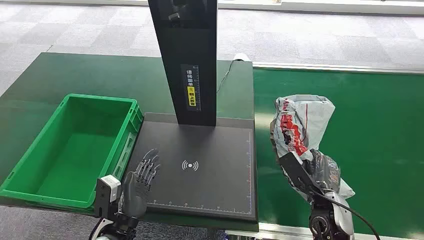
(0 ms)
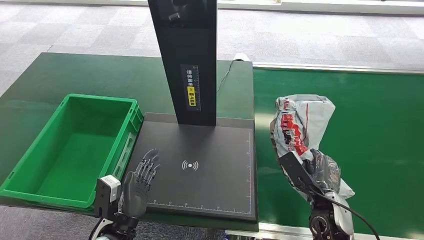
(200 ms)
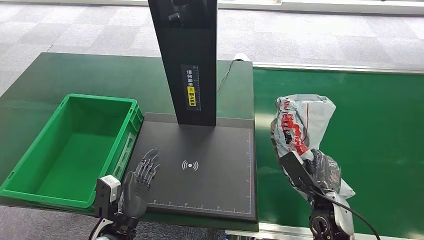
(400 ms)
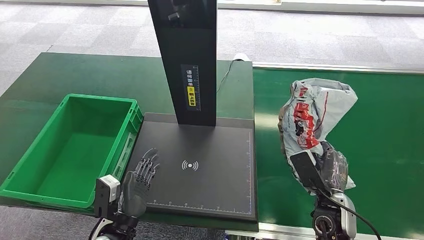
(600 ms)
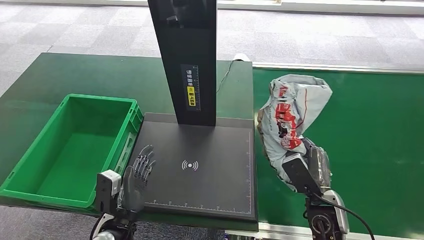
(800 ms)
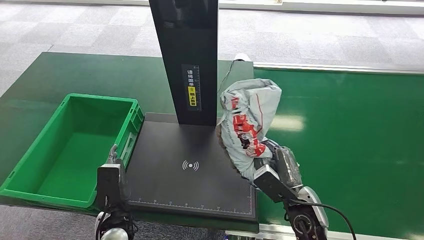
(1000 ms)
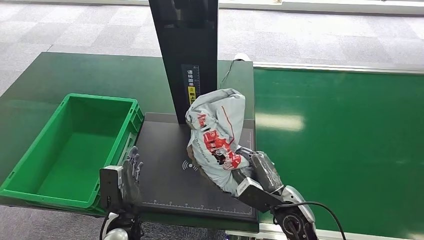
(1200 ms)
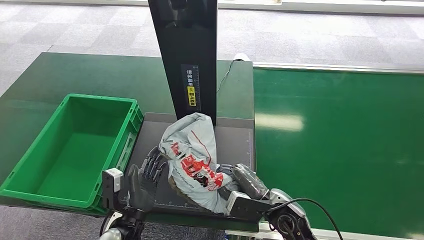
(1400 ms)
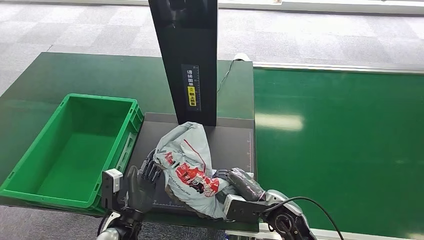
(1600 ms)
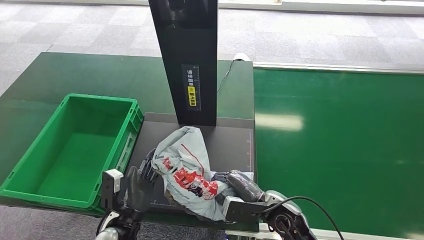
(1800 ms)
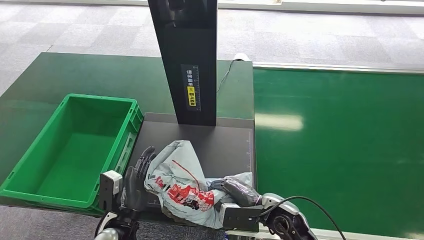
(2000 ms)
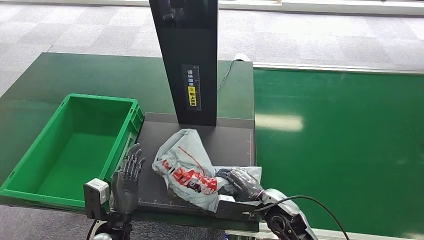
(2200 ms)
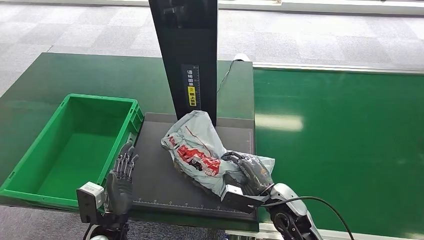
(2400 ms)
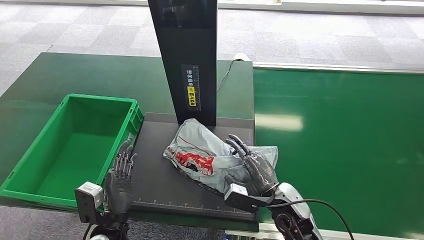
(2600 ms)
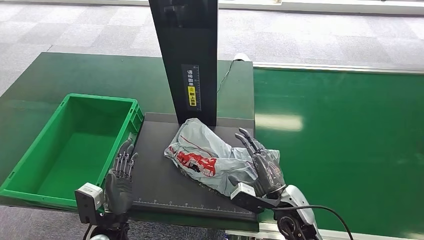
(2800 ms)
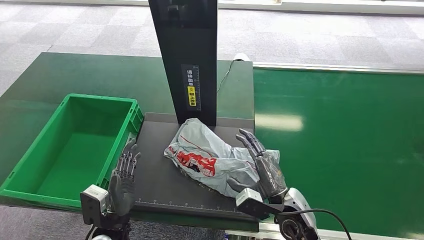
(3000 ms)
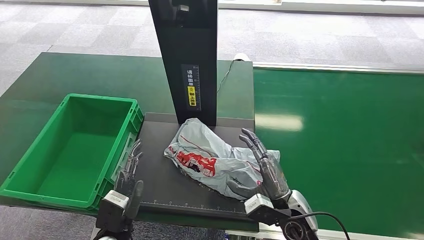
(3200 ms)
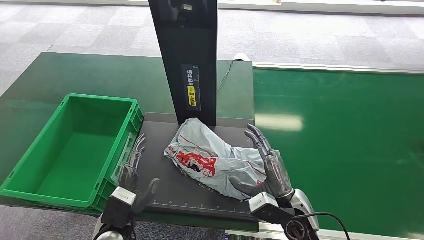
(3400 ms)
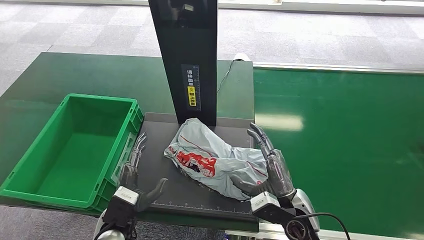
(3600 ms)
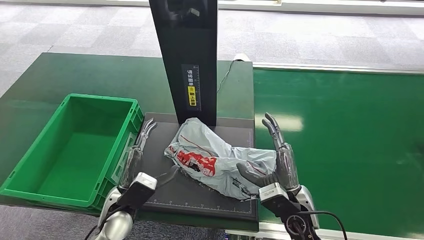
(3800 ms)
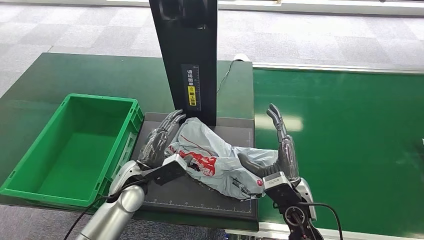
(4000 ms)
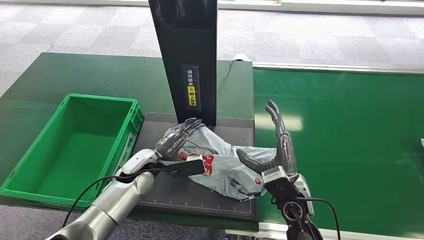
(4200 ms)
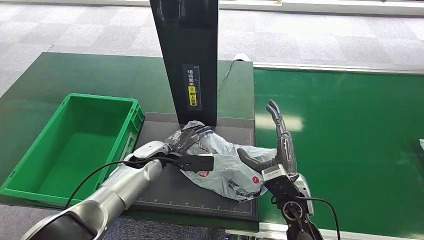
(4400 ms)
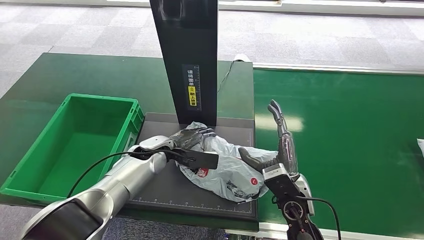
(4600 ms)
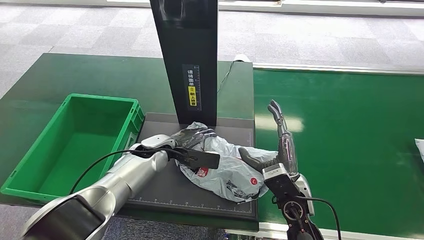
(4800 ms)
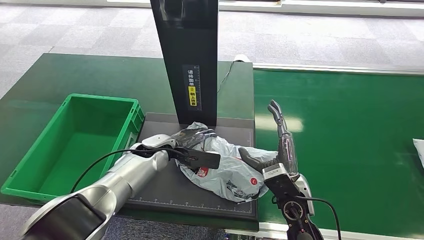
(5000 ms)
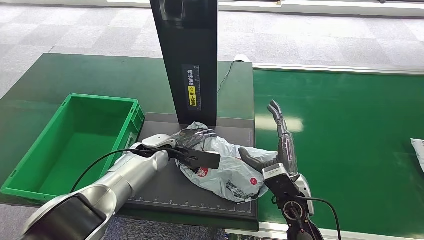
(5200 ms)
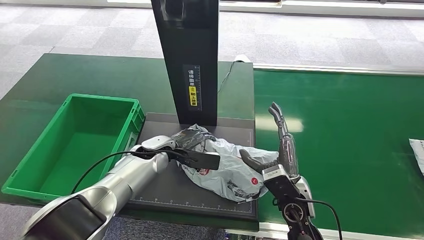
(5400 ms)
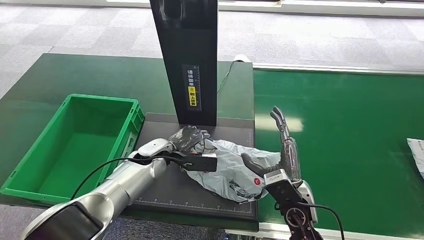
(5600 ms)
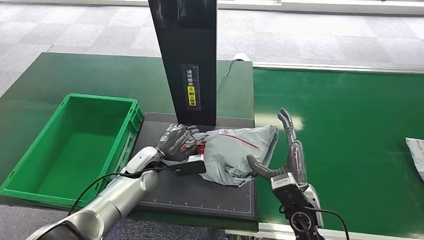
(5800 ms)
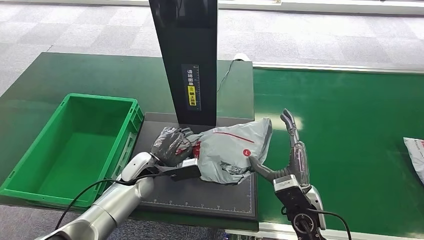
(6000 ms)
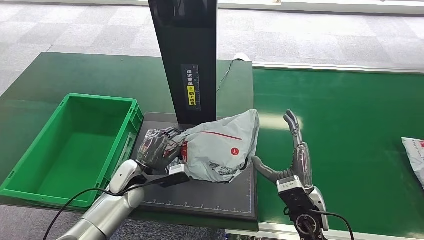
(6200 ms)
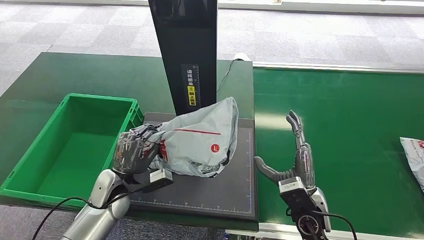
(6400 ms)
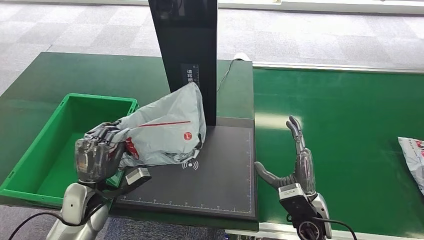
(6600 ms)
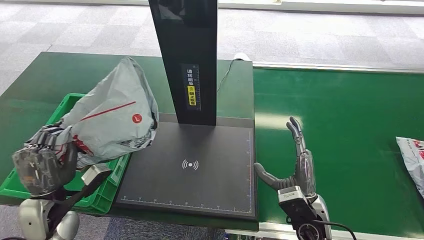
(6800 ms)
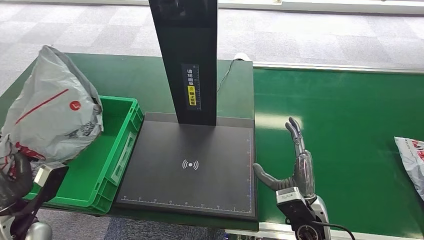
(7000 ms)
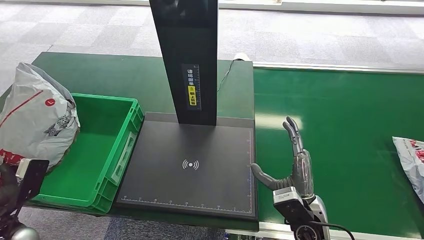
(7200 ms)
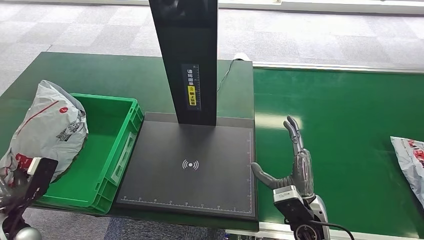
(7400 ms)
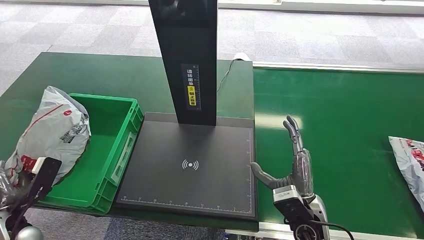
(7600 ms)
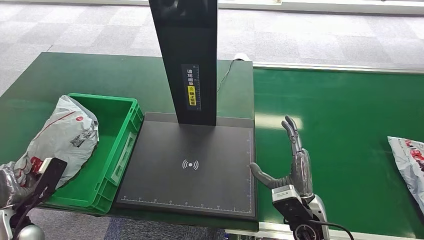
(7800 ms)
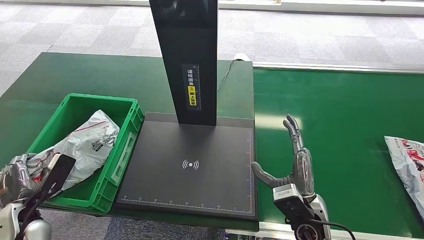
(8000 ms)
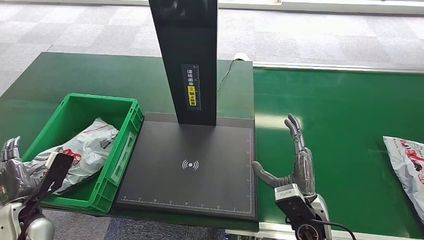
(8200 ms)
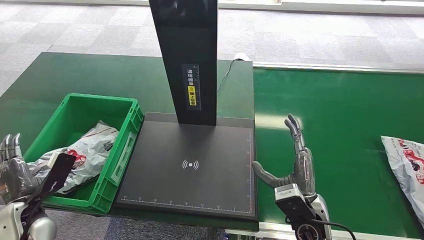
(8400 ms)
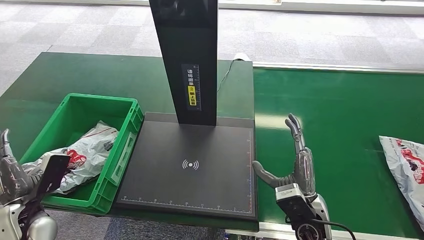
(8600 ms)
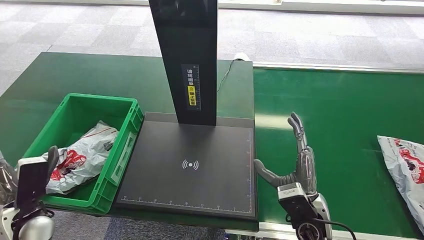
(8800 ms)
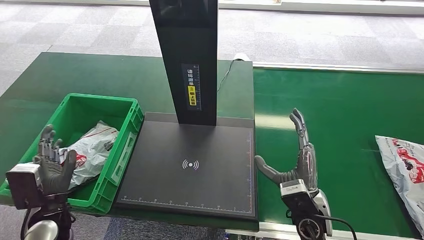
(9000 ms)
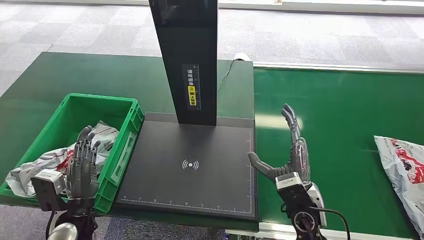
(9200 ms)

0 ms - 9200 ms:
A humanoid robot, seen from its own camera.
Step, 6800 ms - 7000 ms: Pick up the package from the inbound machine.
3000 ms - 4600 ms: The left hand travels forward by approximately 20 cm.
6200 ms - 7600 ms: The left hand moves to the left and backward, roughly 25 cm.
7600 ms - 9200 ms: The left hand moves to the right, about 10 cm.

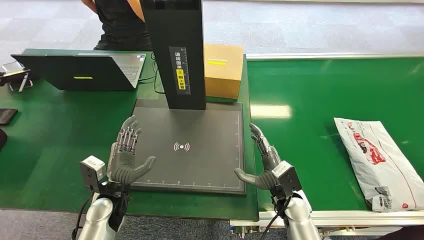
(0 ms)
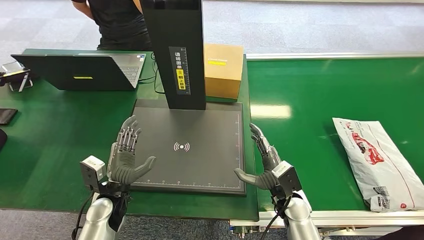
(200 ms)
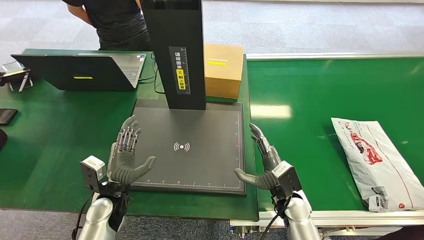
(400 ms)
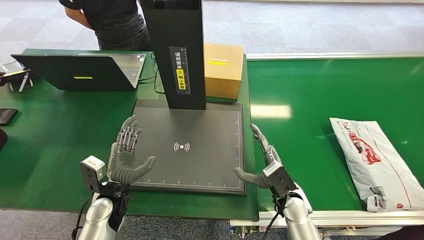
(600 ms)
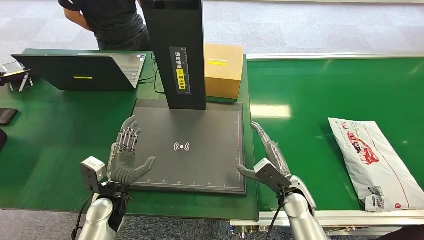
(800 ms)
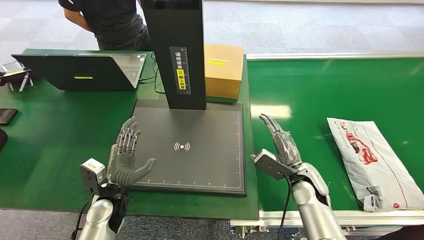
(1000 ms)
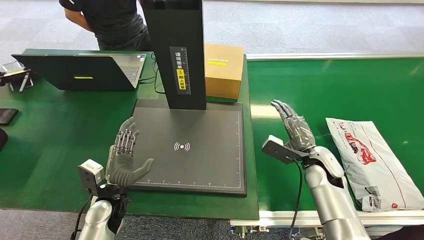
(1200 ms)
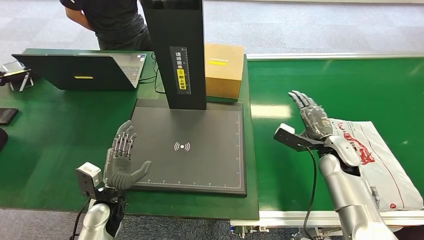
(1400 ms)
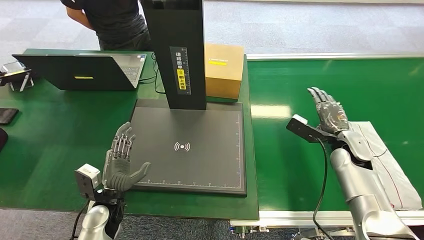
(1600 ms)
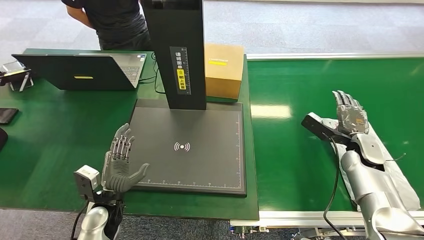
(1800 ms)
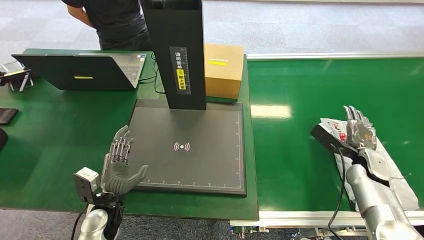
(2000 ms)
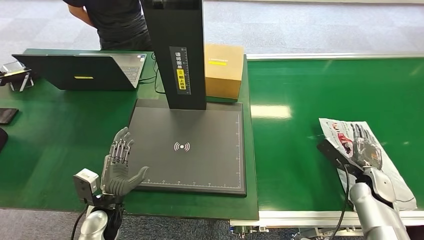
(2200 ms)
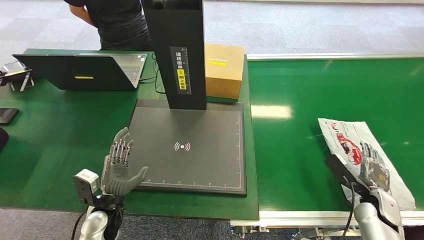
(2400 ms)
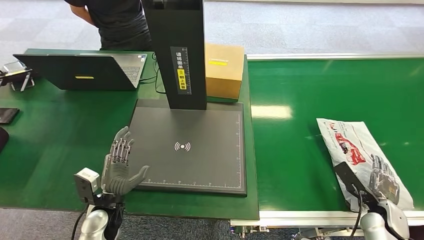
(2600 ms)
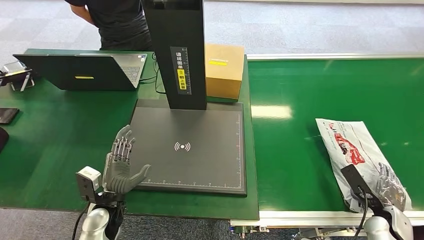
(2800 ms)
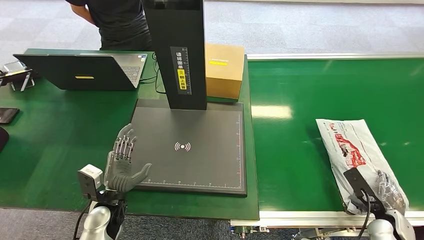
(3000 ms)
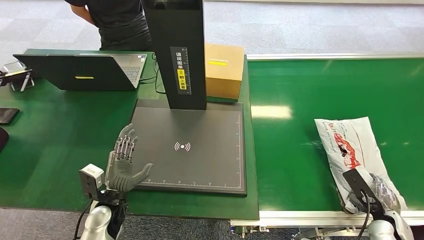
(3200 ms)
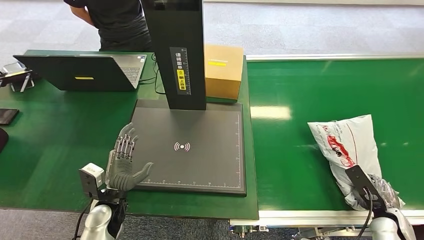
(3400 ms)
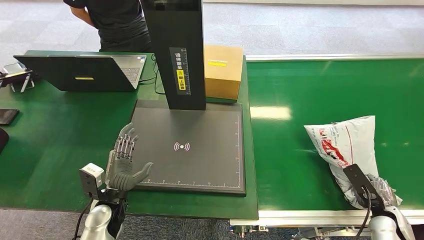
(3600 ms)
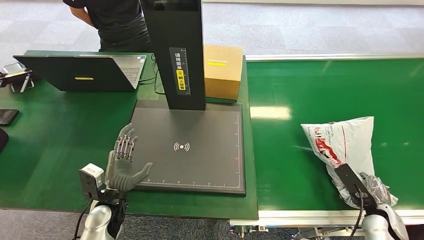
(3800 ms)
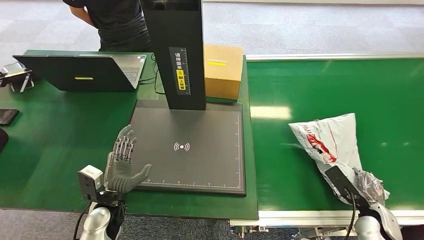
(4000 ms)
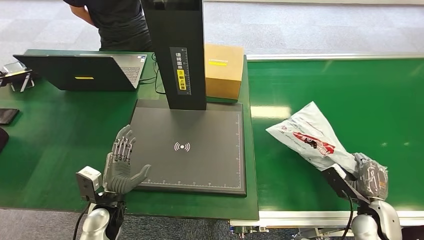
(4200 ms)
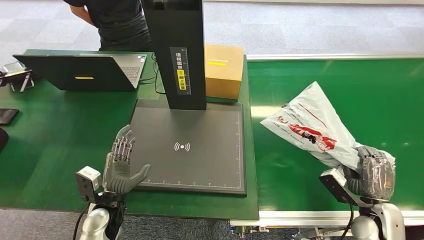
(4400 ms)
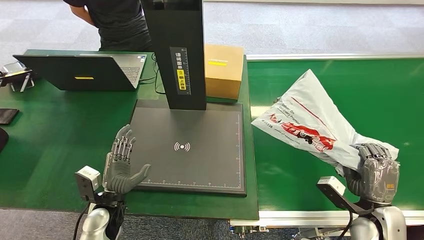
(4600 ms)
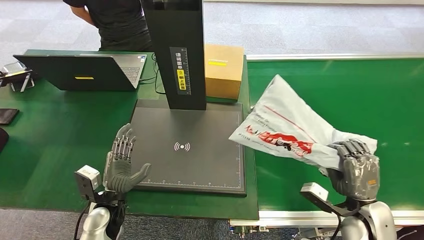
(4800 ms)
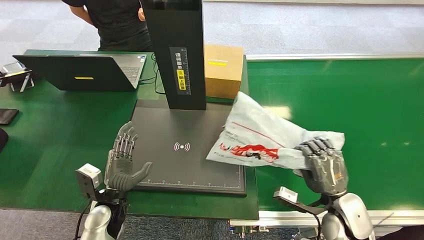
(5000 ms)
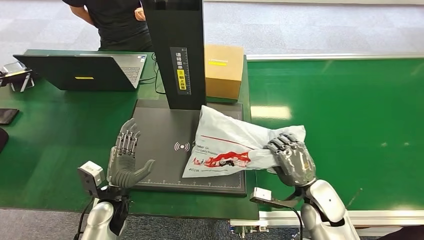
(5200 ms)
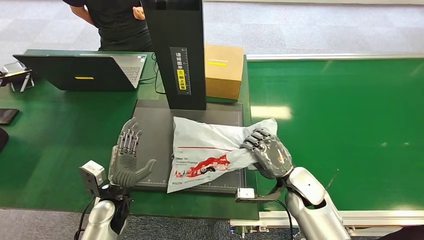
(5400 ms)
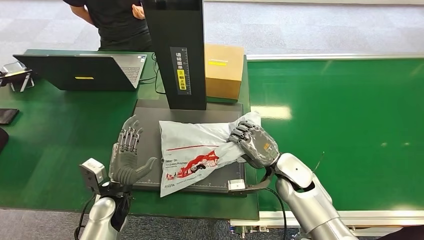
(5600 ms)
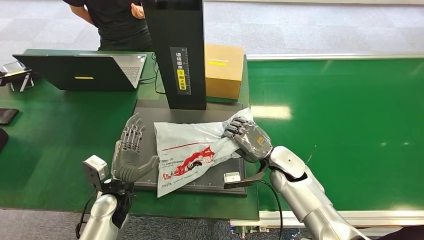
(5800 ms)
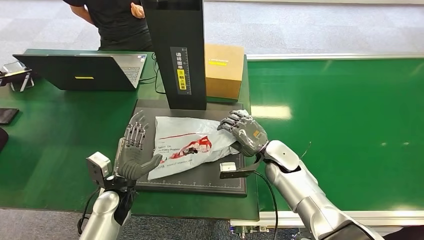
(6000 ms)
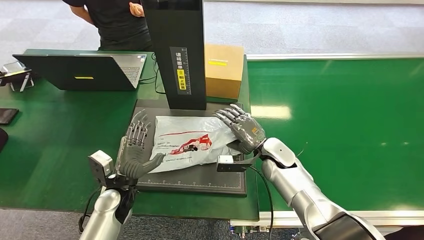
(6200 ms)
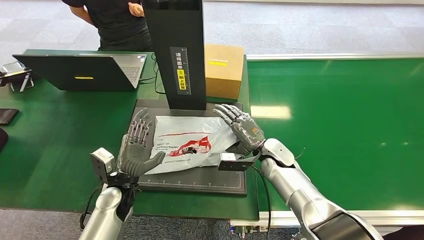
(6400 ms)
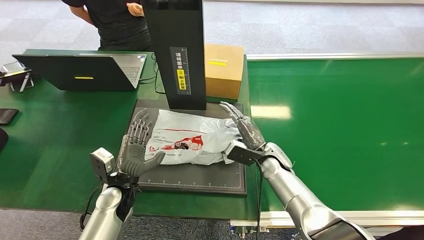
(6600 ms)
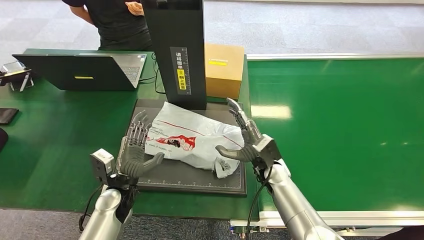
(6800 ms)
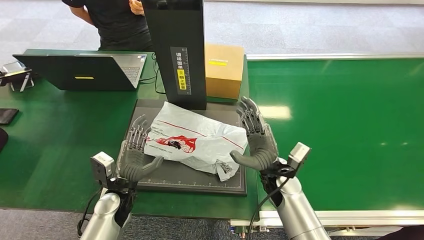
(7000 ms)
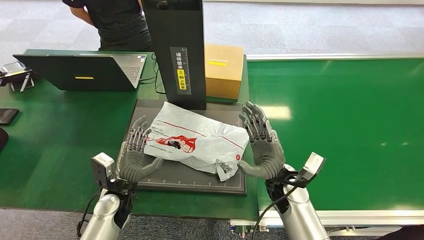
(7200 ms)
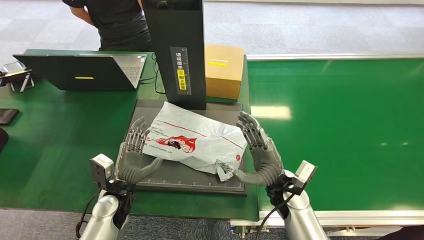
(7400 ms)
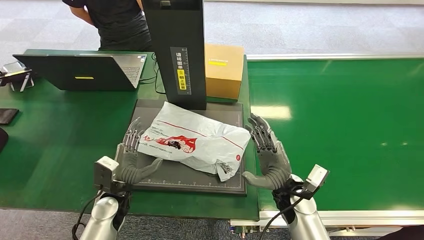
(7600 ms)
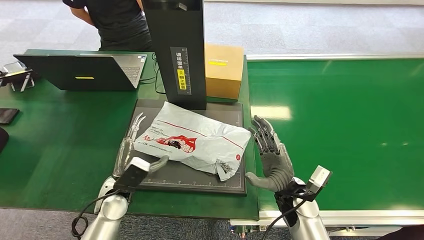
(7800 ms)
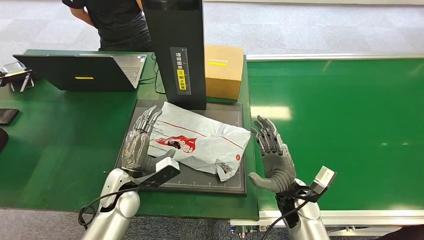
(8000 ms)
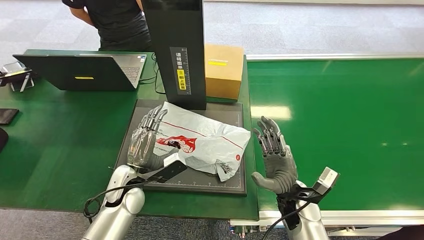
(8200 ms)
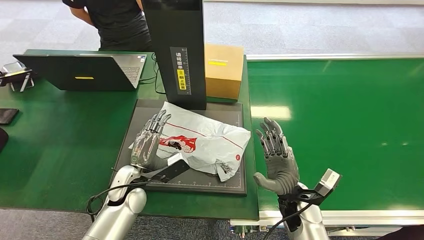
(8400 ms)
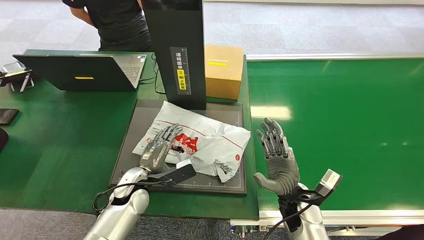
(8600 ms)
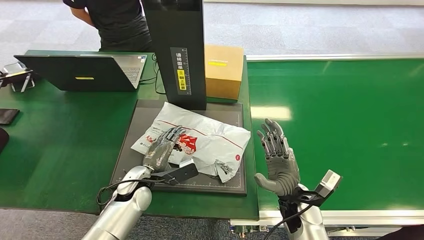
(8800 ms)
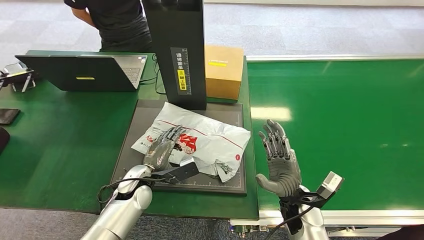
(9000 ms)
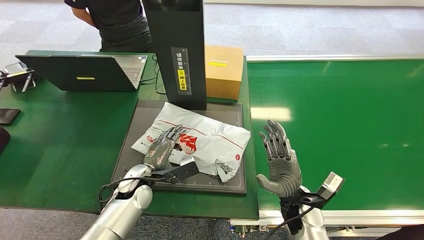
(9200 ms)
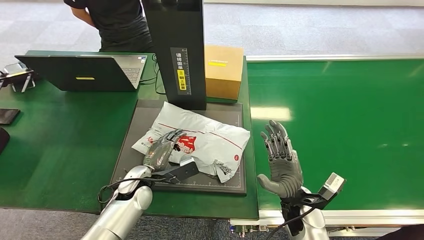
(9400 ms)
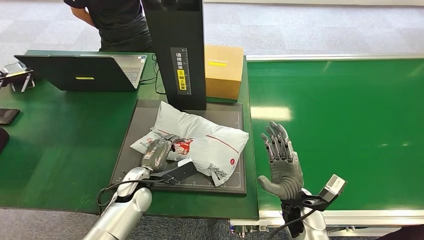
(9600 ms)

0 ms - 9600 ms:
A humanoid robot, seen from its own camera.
Step, 0 ms - 4800 ms: Pick up the package from the conveyor belt.
Step, 5000 ms - 7000 ms: Place the package onto the inbound machine.
1600 ms - 3200 ms: The right hand goes approximately 25 cm backward, downward and to the right.
3200 ms - 4800 ms: The right hand moves to the left and upward, roughly 15 cm.
6400 ms - 8000 ms: The right hand goes some 10 cm backward.
8000 ms - 9600 ms: The left hand ends up some 5 cm from where it was.
